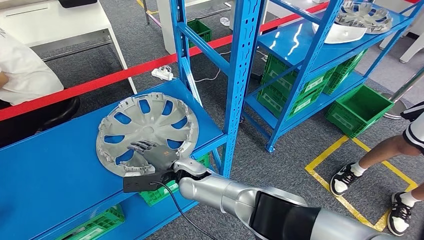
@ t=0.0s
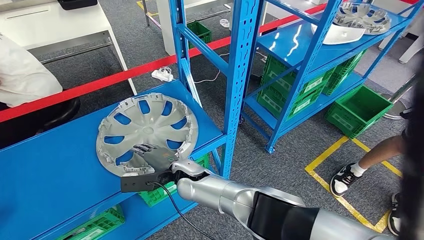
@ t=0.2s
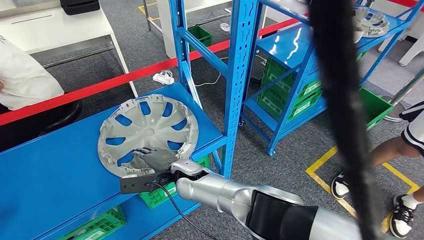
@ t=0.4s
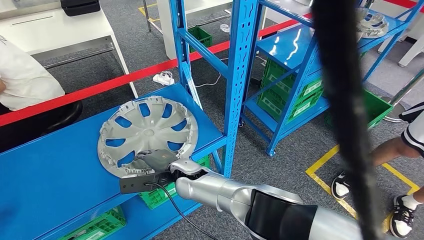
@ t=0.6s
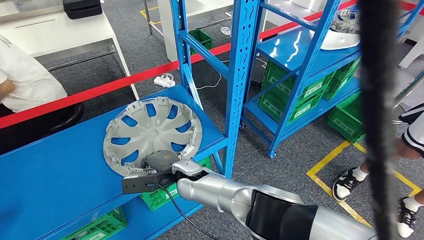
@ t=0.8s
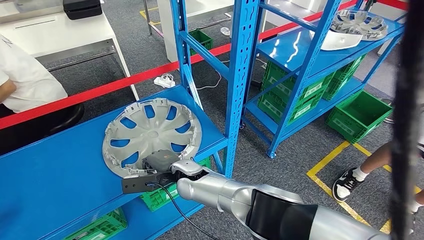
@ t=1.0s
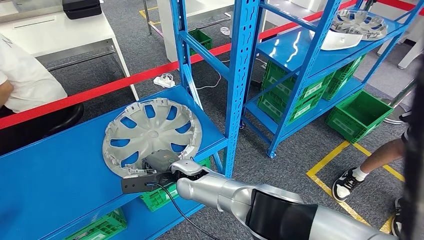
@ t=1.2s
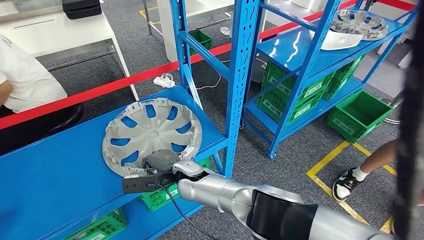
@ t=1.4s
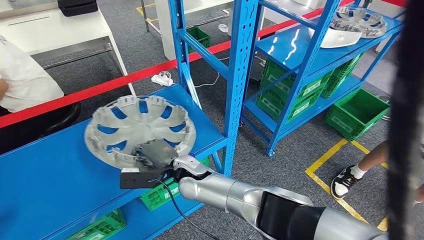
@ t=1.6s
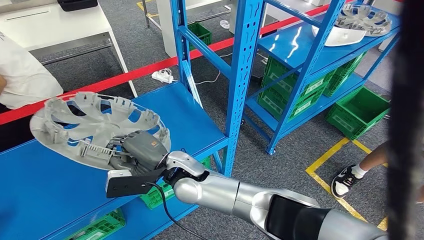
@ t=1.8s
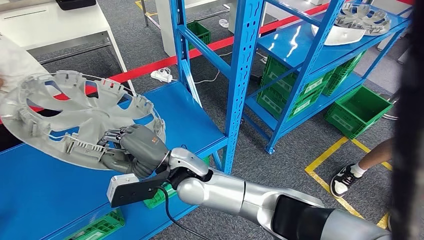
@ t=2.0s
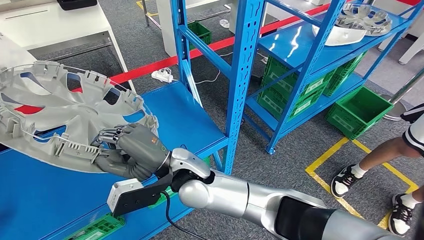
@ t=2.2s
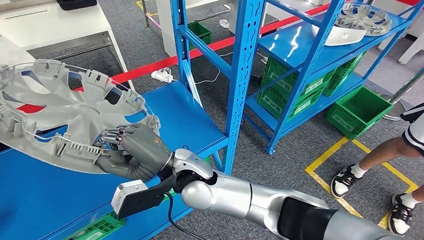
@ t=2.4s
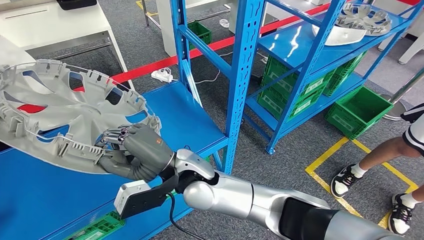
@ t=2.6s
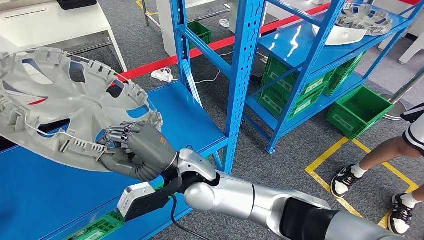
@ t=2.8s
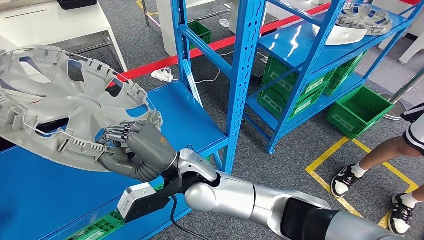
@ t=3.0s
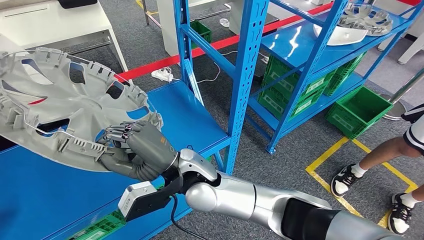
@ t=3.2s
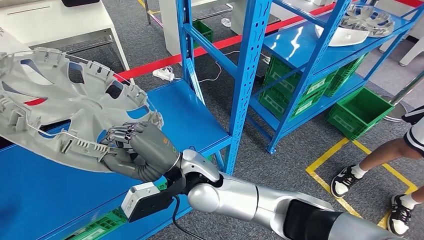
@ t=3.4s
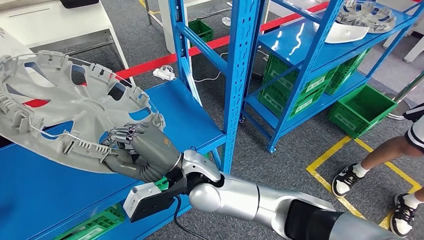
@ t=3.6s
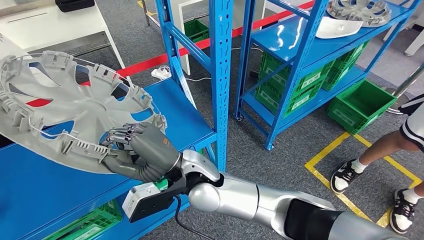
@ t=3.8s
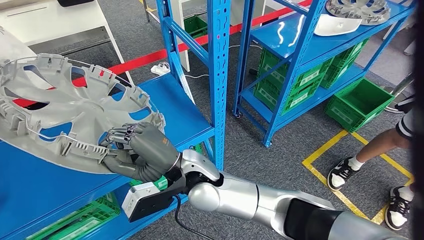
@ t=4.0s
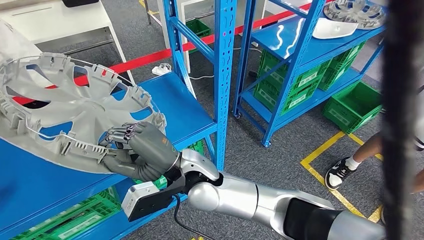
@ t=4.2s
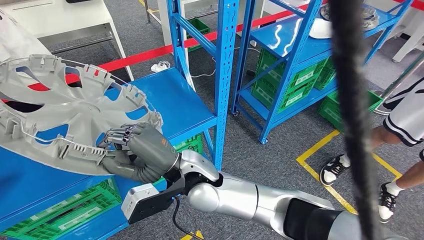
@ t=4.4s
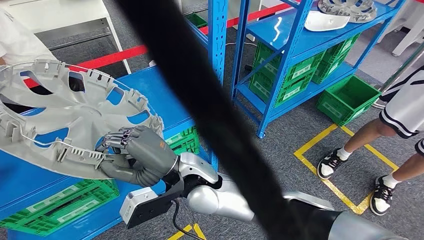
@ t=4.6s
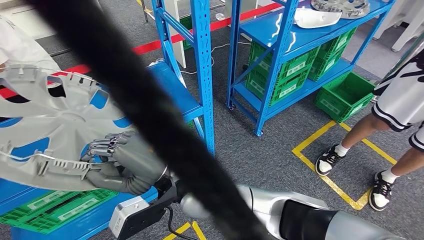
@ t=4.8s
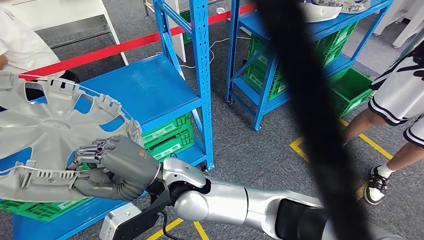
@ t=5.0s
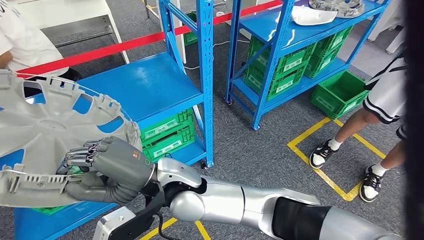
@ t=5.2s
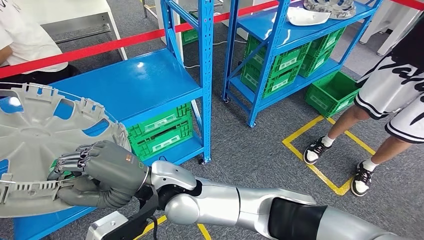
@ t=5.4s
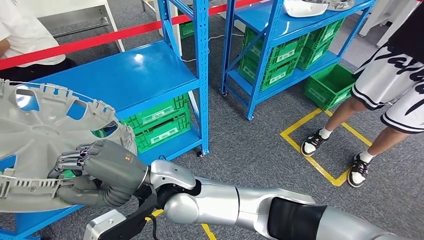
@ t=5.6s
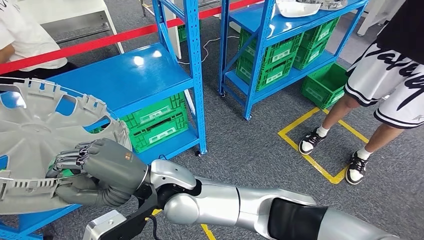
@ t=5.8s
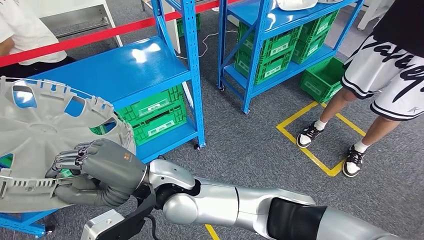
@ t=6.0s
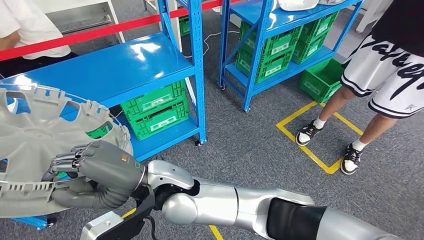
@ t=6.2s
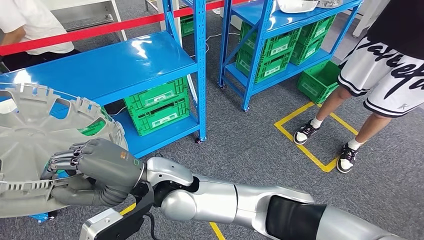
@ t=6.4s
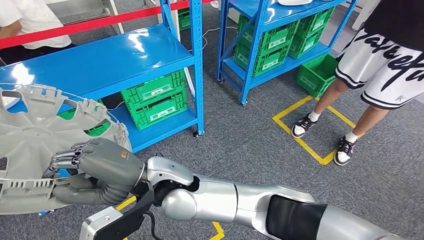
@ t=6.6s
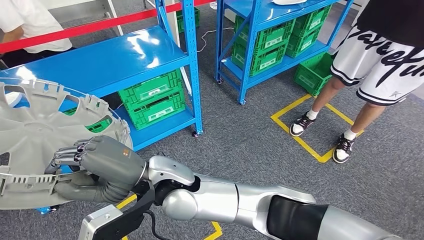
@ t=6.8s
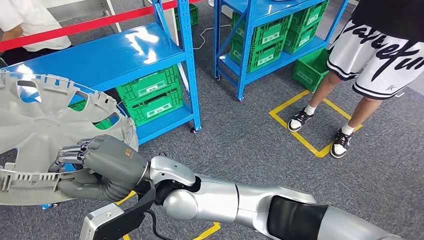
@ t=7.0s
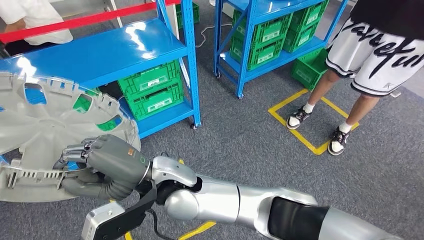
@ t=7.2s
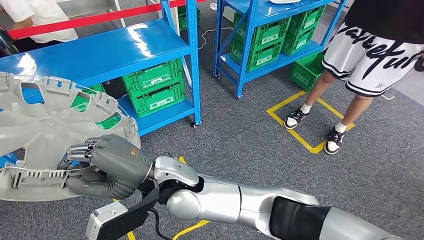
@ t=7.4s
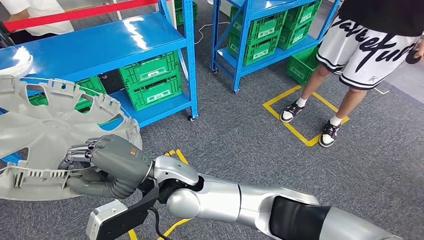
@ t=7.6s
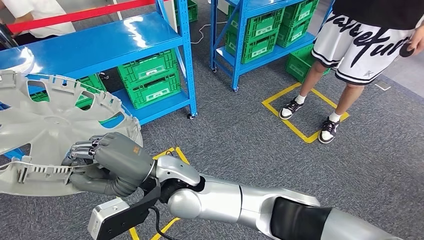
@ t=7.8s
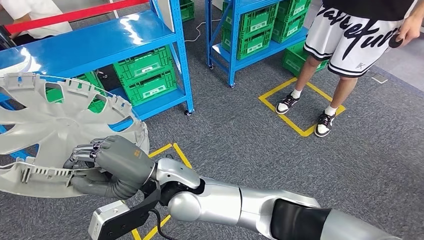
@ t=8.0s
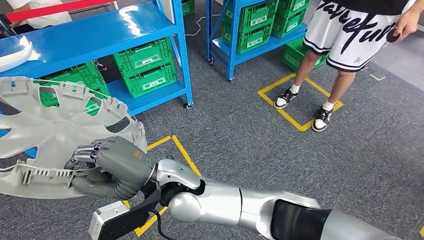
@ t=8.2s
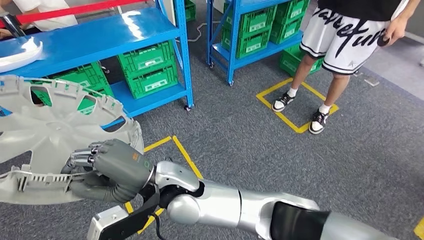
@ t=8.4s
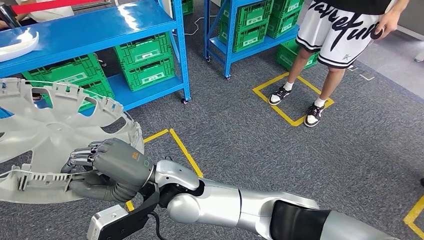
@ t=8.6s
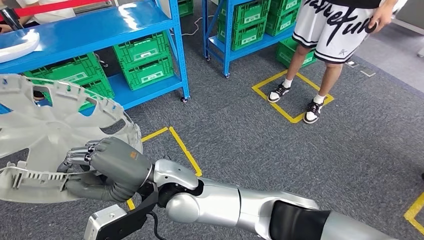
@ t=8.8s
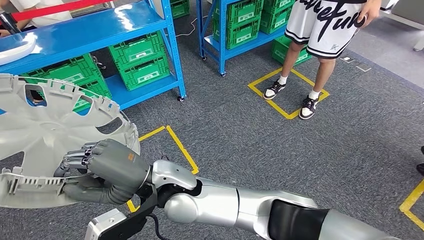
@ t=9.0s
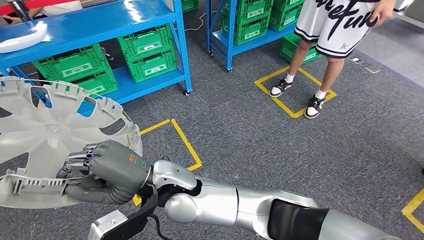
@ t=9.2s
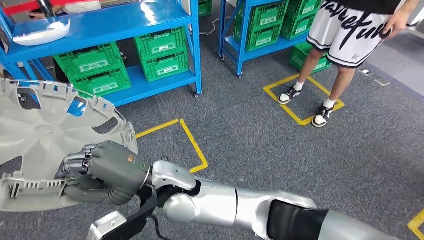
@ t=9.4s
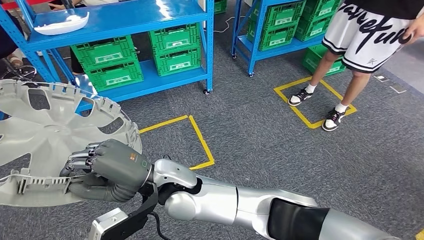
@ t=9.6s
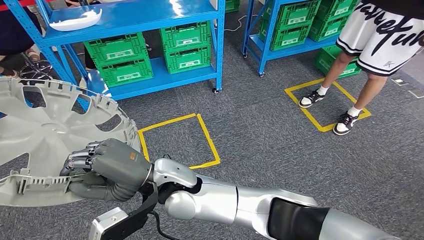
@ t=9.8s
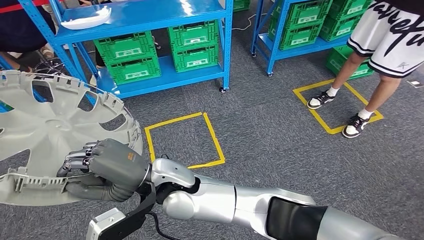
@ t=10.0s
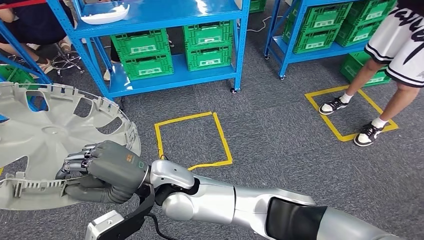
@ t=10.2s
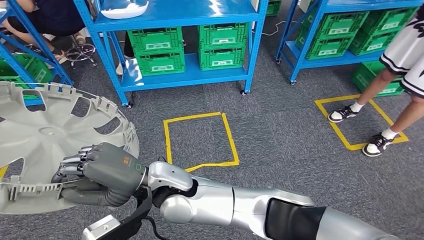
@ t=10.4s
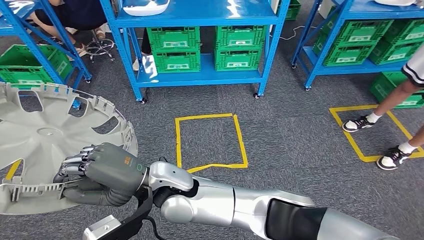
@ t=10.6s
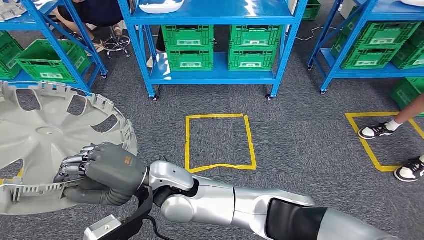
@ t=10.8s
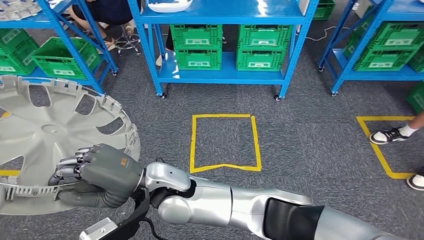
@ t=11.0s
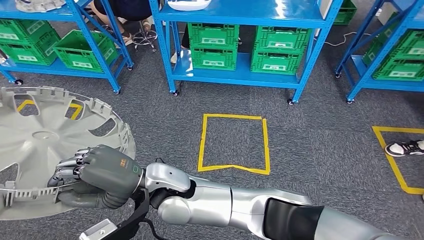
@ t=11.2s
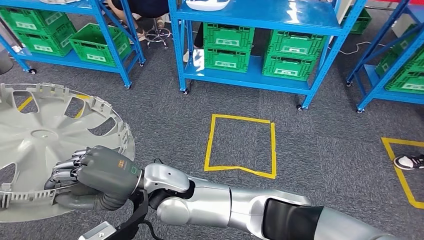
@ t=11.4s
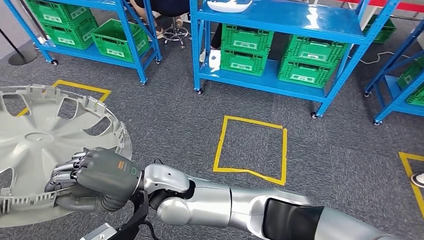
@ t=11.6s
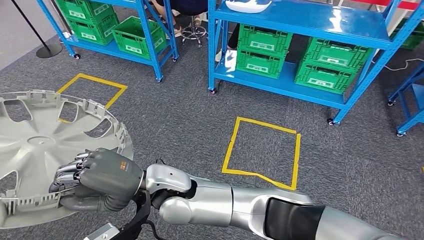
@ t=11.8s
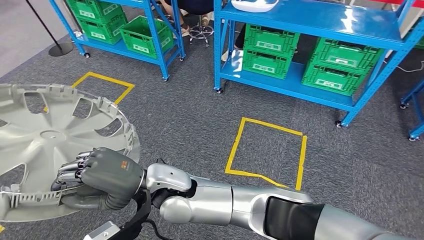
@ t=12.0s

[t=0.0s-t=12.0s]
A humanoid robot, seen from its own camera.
Step, t=0.0s to t=2.2s: Pick up the small parts from the shelf.

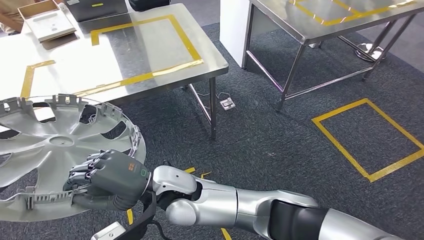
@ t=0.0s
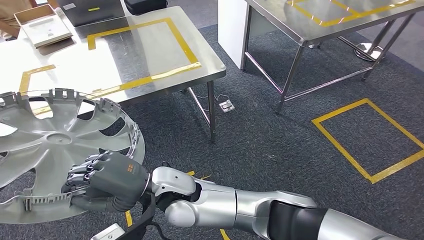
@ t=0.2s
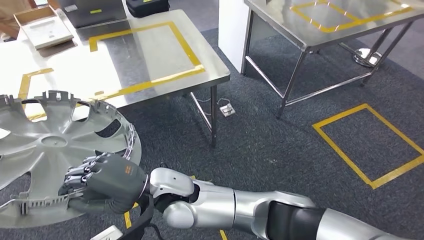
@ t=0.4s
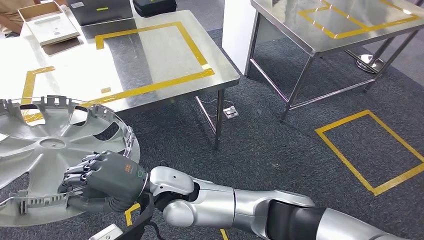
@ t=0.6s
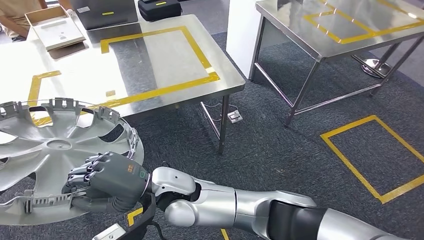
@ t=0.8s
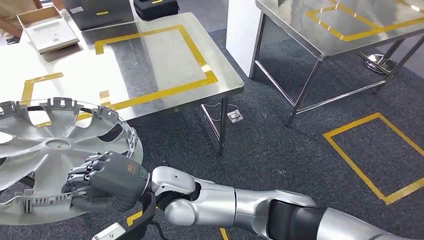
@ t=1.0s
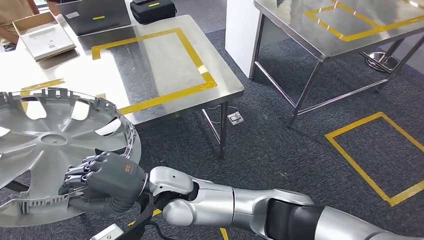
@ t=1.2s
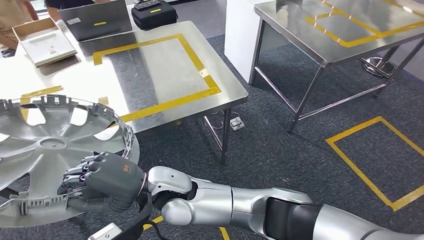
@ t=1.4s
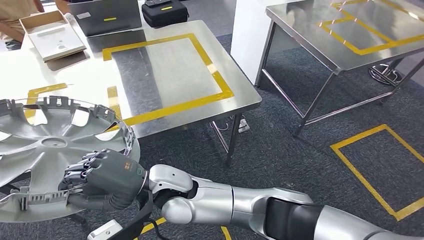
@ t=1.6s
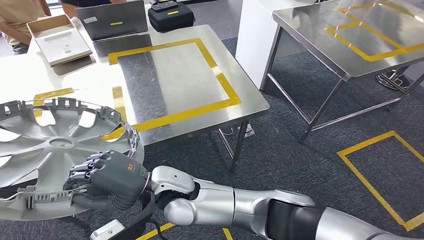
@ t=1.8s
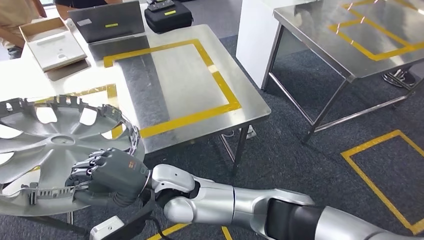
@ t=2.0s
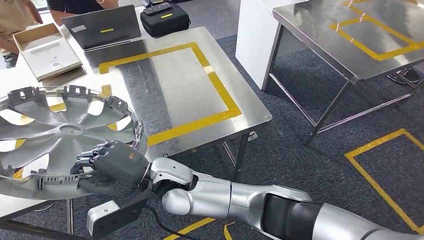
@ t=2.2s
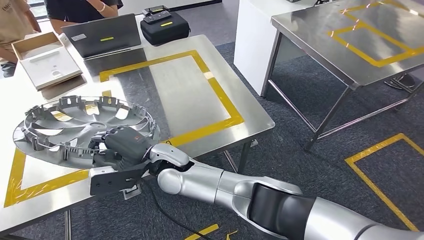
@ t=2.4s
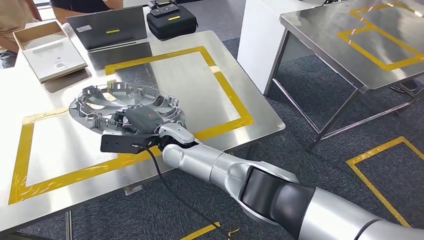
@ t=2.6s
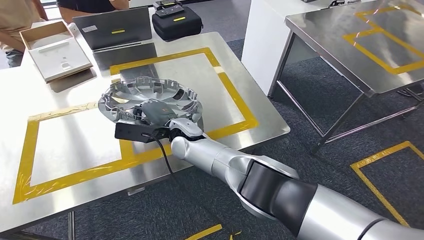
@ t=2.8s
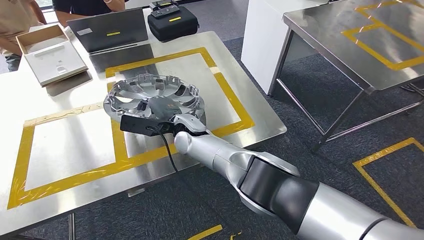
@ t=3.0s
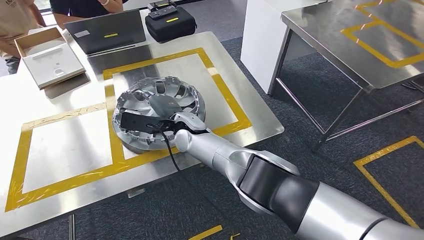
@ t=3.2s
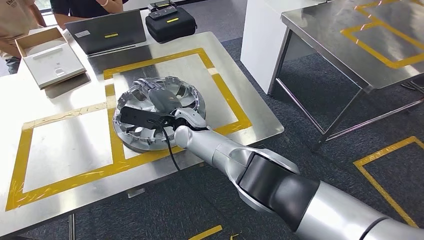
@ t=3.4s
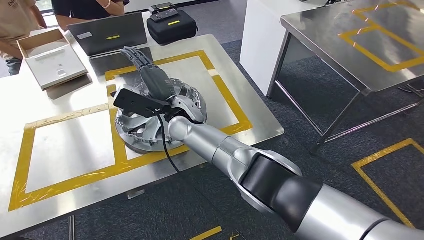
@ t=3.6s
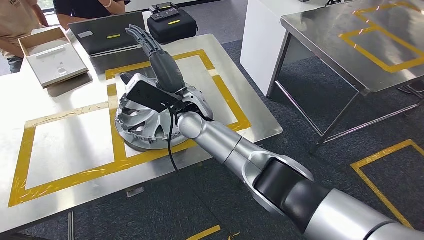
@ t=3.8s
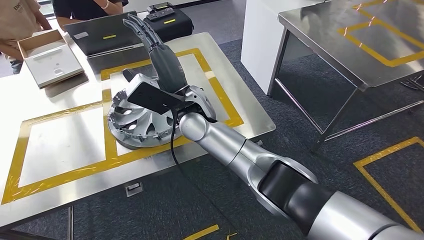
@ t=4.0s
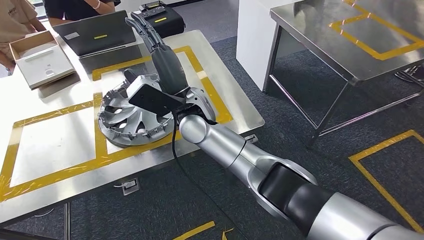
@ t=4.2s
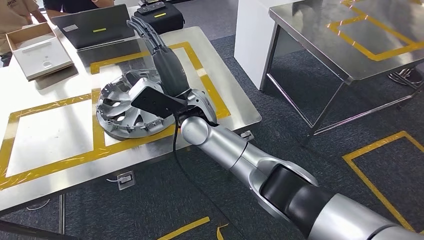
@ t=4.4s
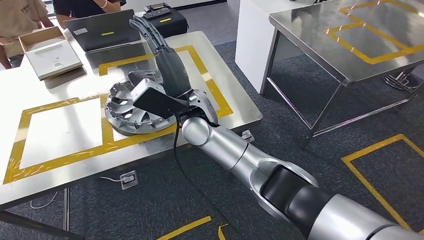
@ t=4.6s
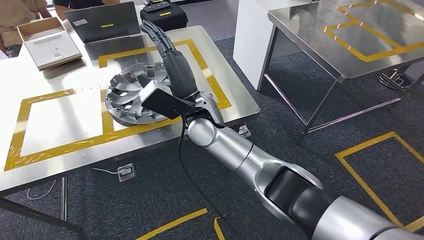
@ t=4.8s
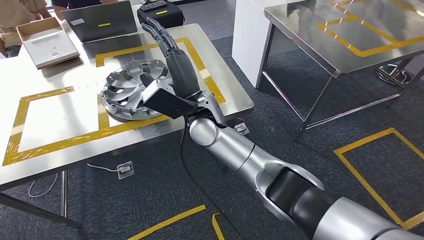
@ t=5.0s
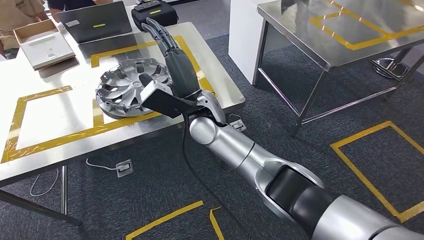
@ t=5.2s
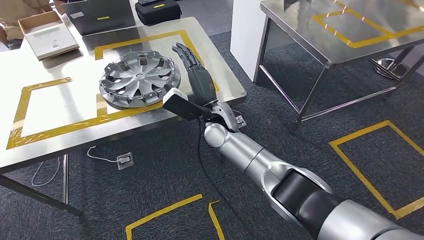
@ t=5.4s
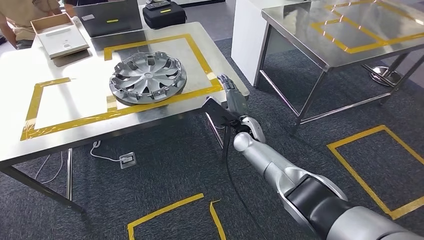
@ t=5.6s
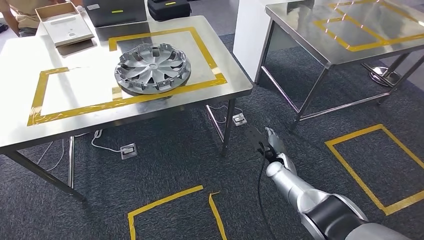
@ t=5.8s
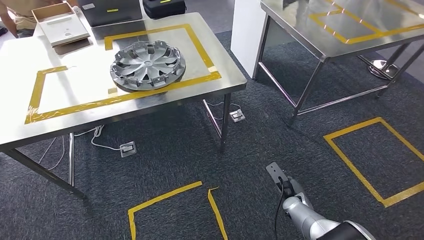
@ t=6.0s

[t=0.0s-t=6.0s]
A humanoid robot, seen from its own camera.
Step, t=0.0s to t=2.0s: Move the small parts to the workbench.
Step, t=2.2s to t=4.8s: Insert the small parts into the corresponding slots on the workbench.
